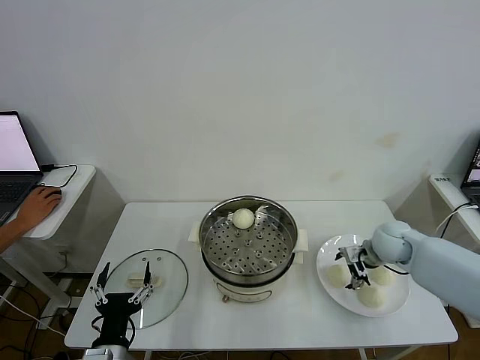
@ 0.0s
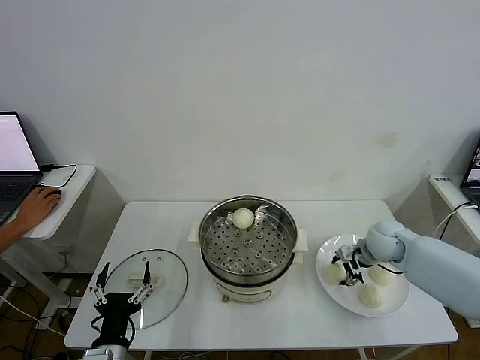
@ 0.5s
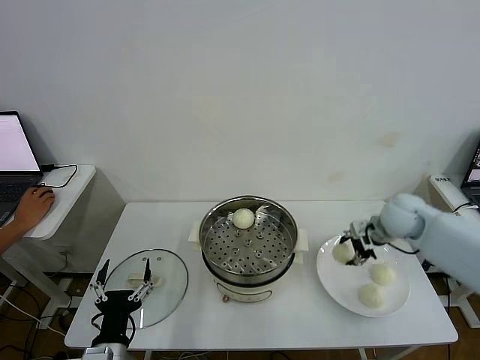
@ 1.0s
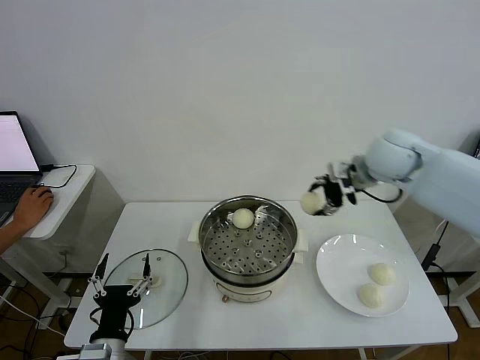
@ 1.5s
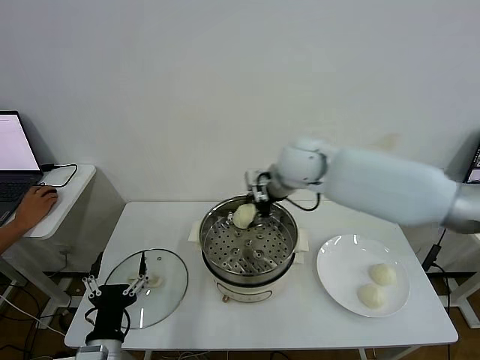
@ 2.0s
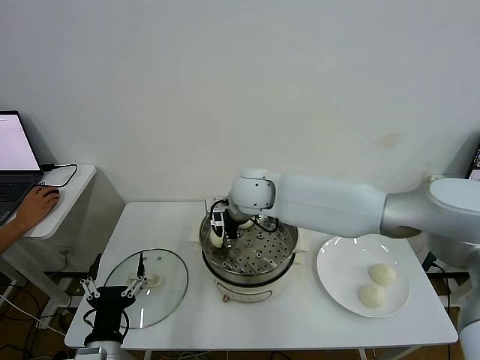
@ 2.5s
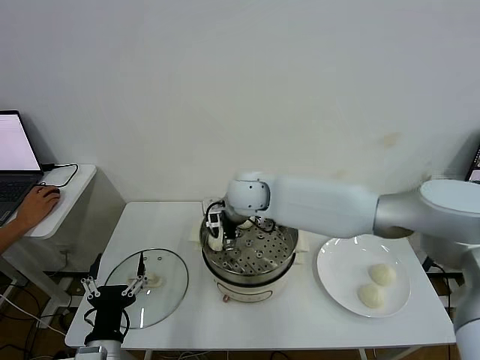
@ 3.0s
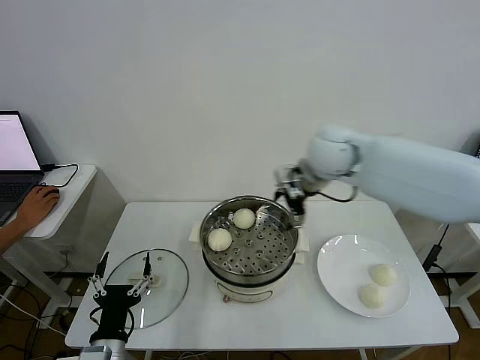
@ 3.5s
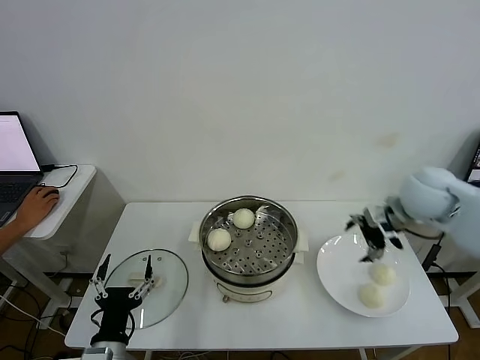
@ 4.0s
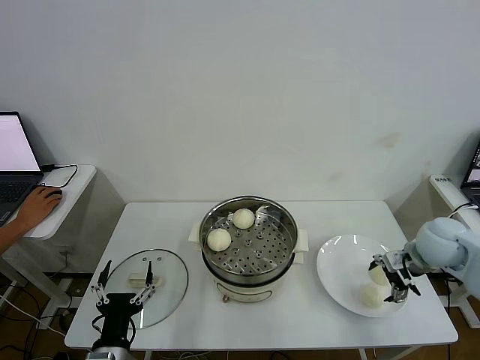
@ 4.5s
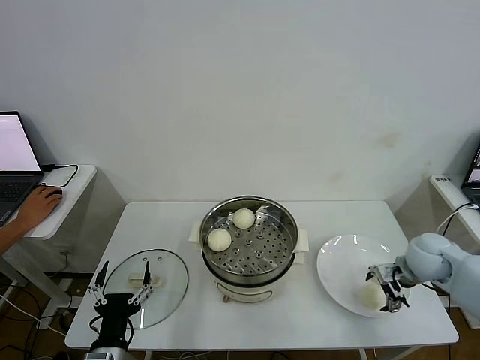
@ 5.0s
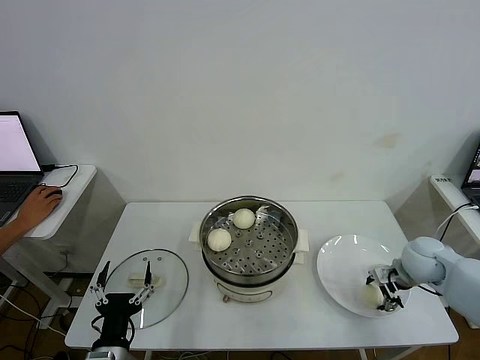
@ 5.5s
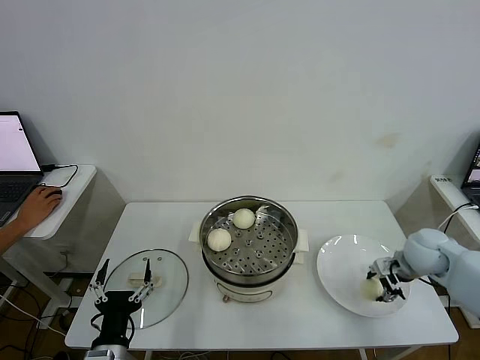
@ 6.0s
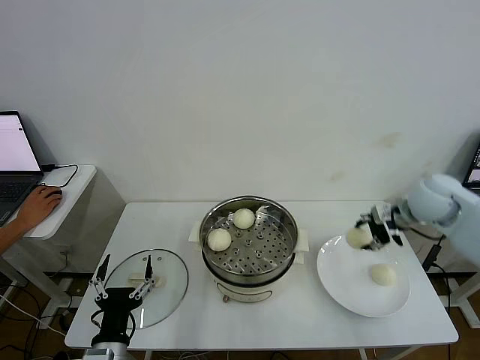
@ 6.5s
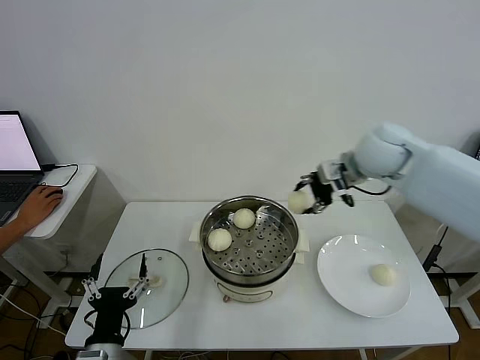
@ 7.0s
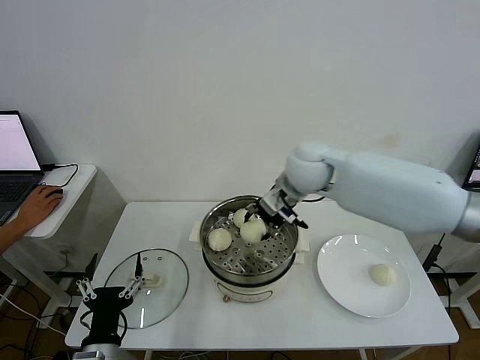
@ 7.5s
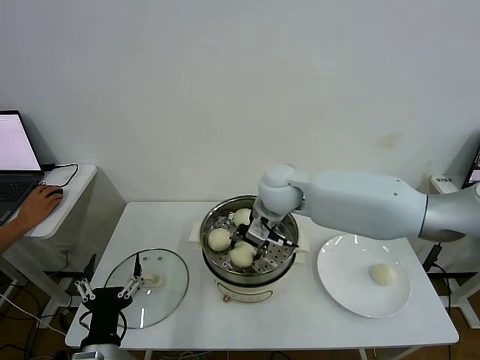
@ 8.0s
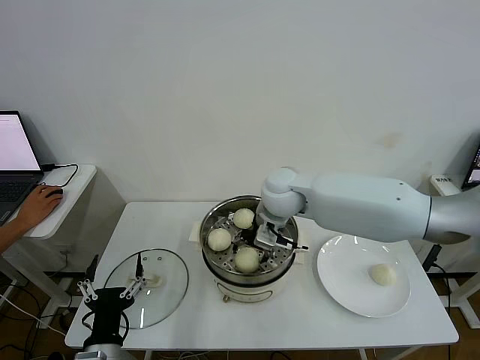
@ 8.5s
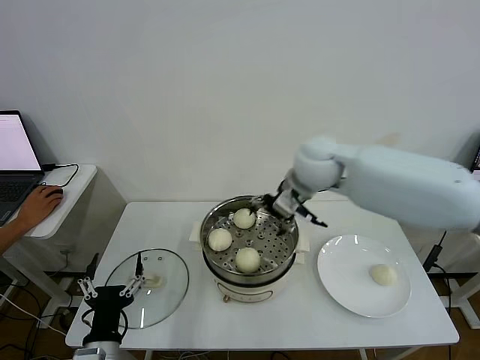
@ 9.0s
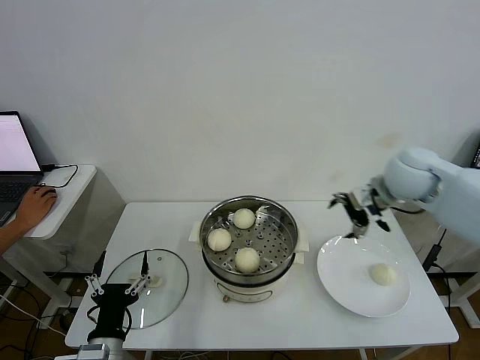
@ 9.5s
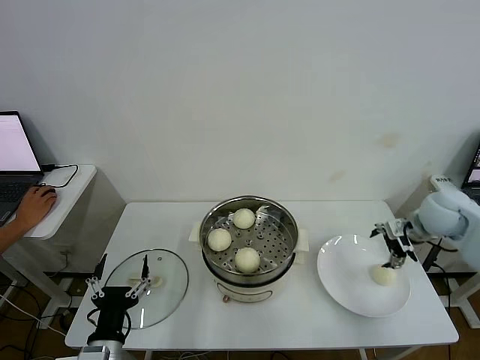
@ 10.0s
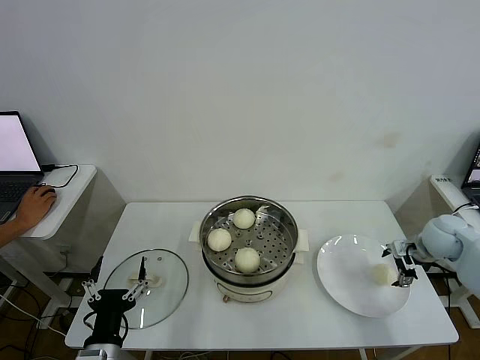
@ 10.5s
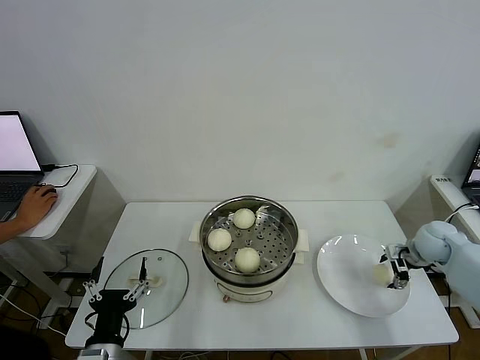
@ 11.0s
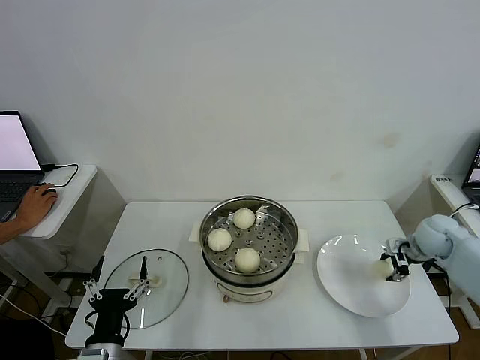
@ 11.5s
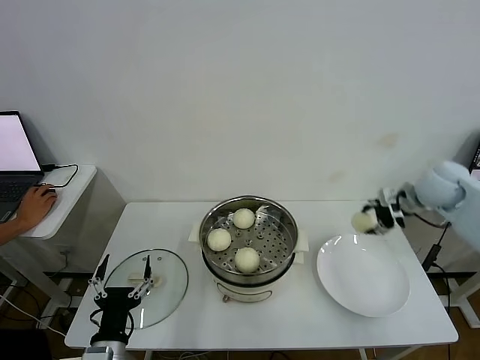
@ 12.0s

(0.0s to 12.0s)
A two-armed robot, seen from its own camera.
Step, 1.0s - 3.0s: Place the baozi on the steamer with right gripper.
Step, 3.5s - 5.5s: Grasp the baozi in the plate with right gripper.
Step, 6.0s - 8.5s: Place the baozi on the steamer with right gripper.
Step, 9.0s - 11.0s: Grasp the baozi in the plate with right gripper.
0.0s - 2.0s: The right gripper travels to the left and upward by some 30 cm, and closes.
2.0s - 4.0s: The right gripper goes roughly 25 cm to the right, and opens.
4.0s - 6.0s: The right gripper goes approximately 15 cm downward, and closes.
6.0s - 8.0s: The right gripper shifts about 35 cm to the left.
8.0s - 10.0s: The right gripper shifts some 35 cm to the right, and opens its fingers.
10.0s - 12.0s: The right gripper goes downward and returns, roughly 10 cm each way, and closes.

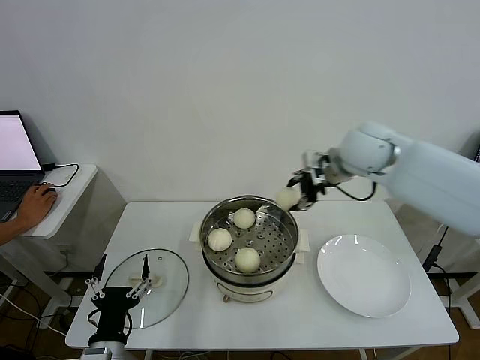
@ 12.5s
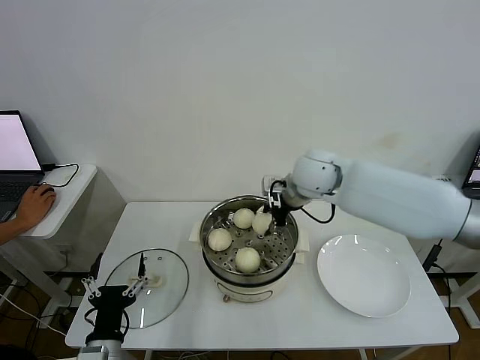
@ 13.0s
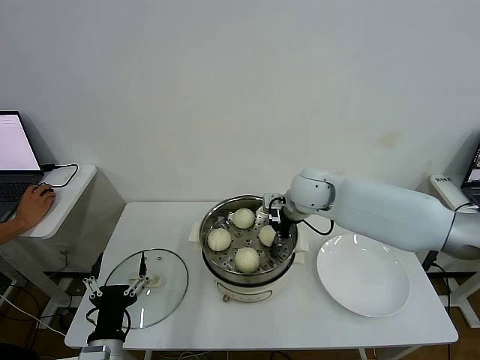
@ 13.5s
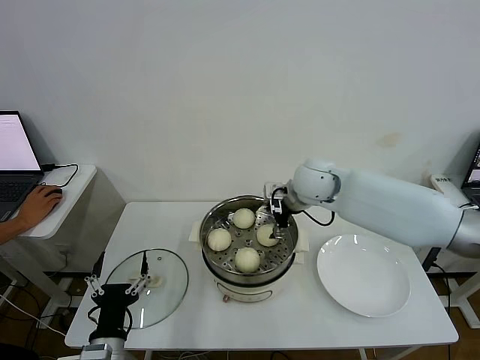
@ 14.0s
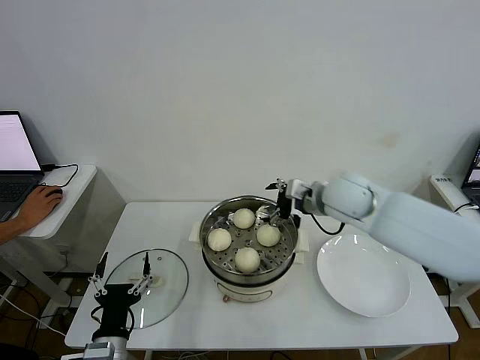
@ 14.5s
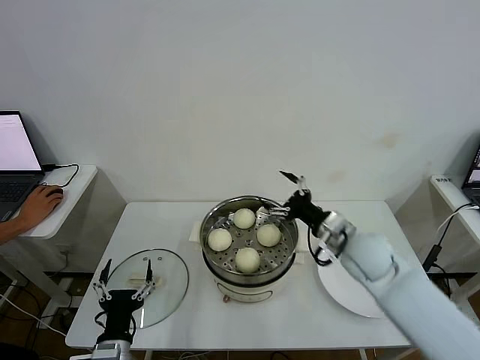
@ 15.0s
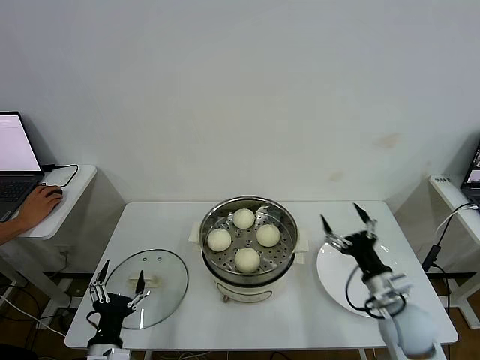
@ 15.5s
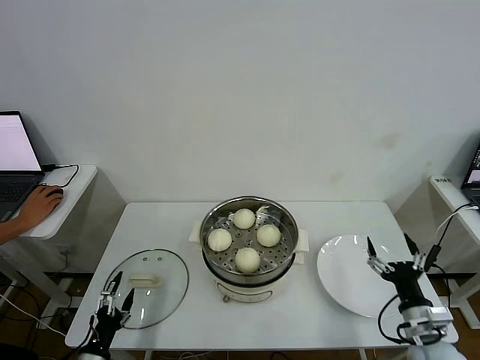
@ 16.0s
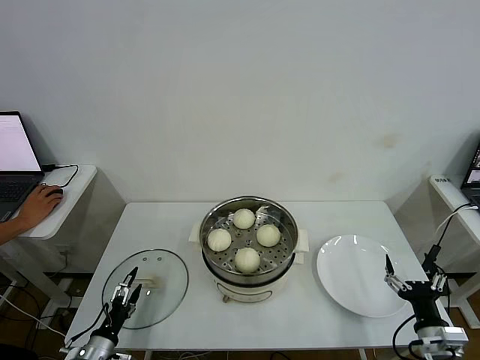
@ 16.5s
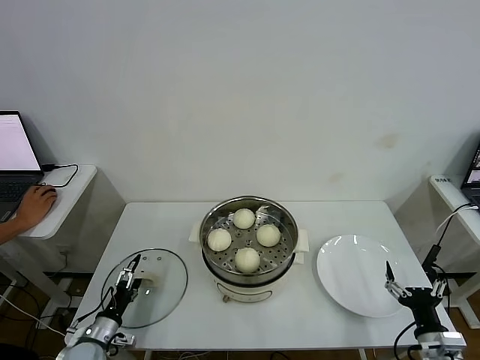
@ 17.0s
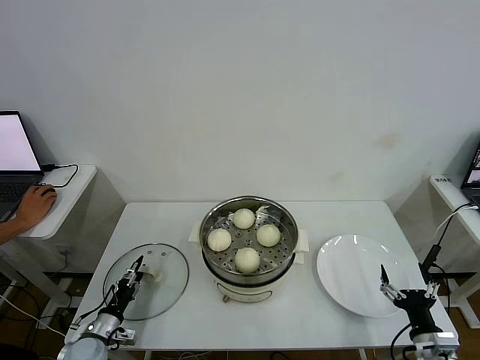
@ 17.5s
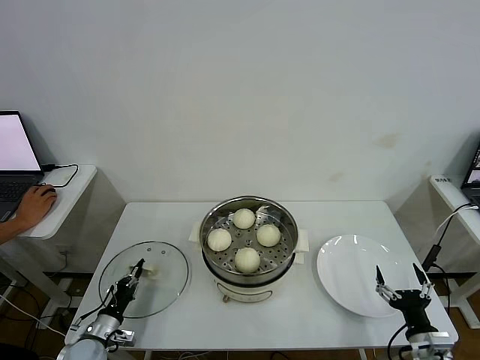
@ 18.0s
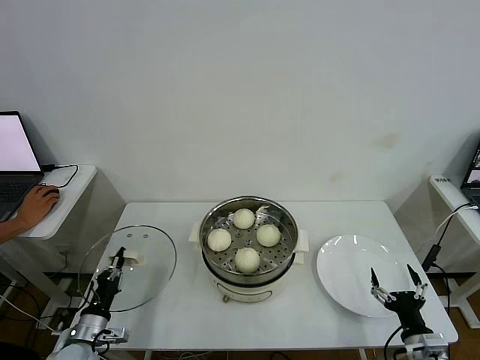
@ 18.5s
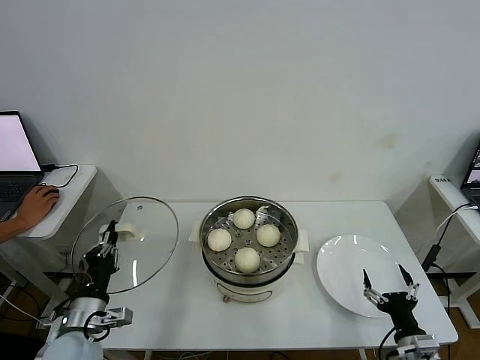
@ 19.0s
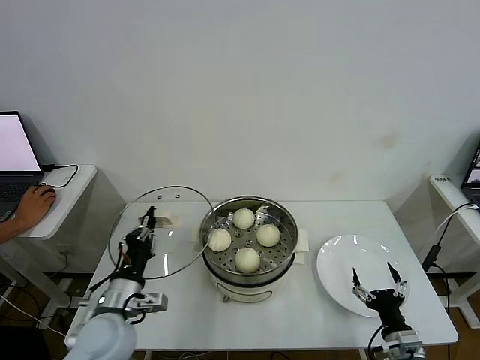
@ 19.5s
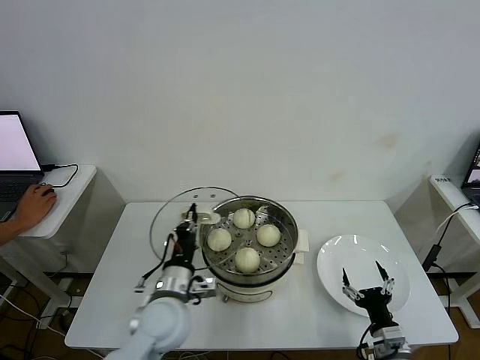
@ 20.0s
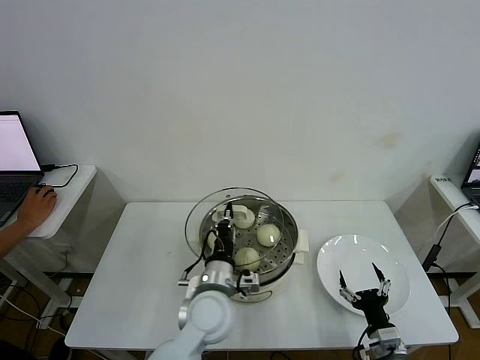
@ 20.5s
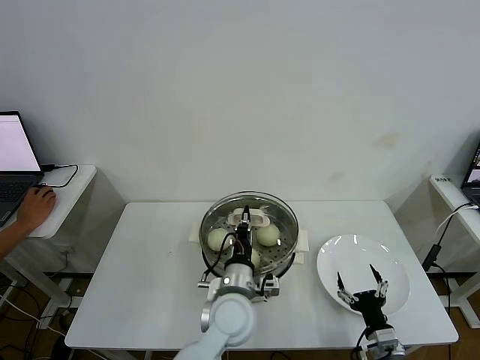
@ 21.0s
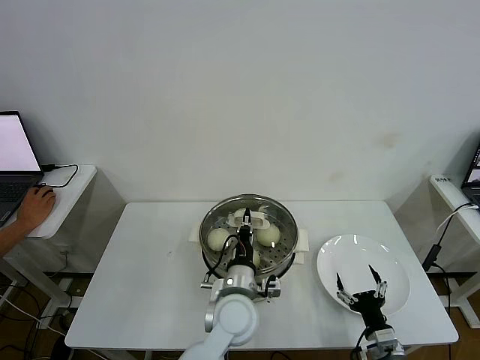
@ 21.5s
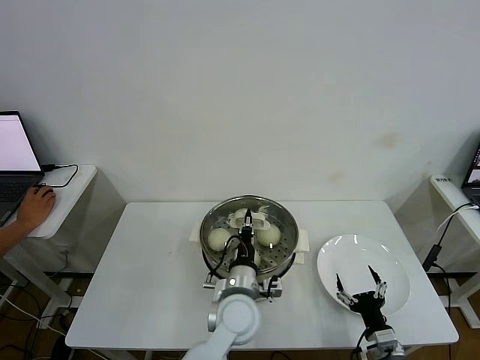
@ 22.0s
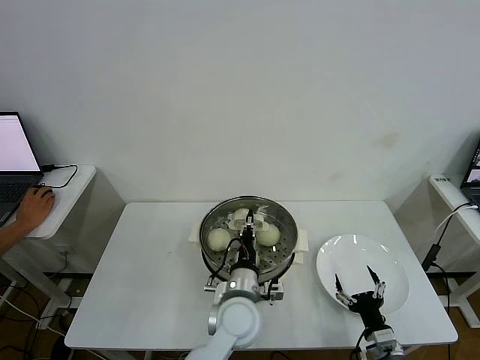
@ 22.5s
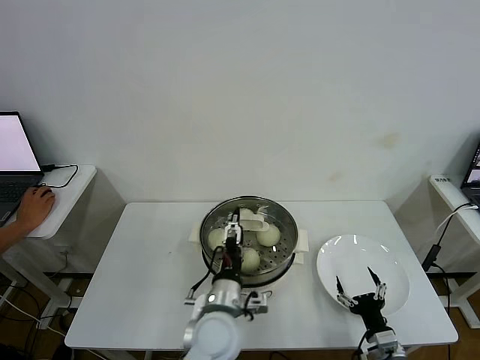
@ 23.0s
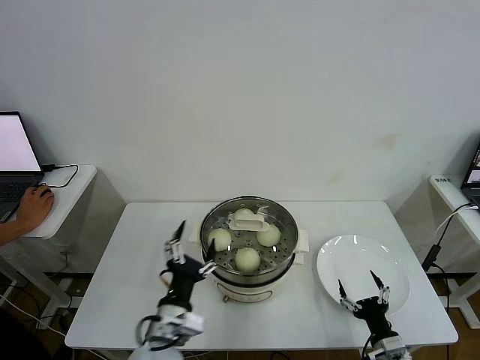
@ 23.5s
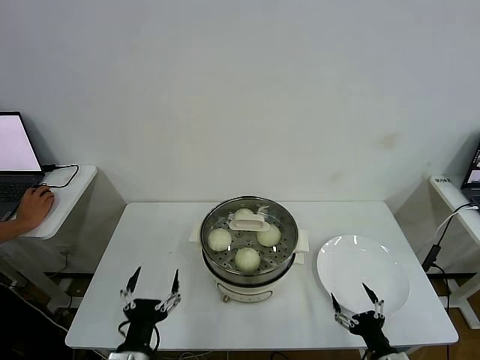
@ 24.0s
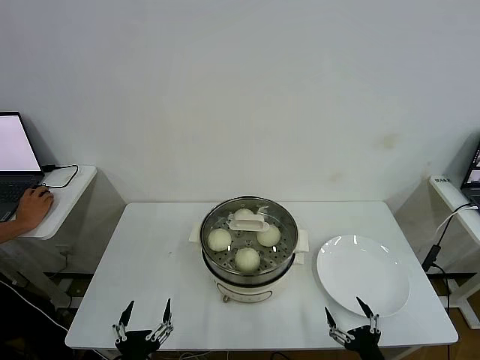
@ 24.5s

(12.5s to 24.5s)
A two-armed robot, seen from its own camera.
Step, 14.0s - 17.5s: Grasp the pot lid with left gripper.
Step, 18.5s - 22.5s: Place the pot lid on the steamer with left gripper.
12.5s - 14.5s: The right gripper heads downward, covering some 10 cm, and opens.
14.5s - 16.5s: The right gripper heads backward, downward and to the right, covering some 40 cm. Meanwhile the left gripper heads downward and to the left, covering approximately 15 cm.
16.5s - 18.5s: The left gripper shifts by approximately 5 cm, and closes.
18.5s - 20.5s: The left gripper is displaced to the right and upward by about 35 cm, while the right gripper is displaced to the left by some 5 cm.
20.5s - 22.5s: The left gripper heads to the right, covering roughly 5 cm.
22.5s - 24.5s: The right gripper shifts approximately 10 cm backward, while the left gripper moves to the left and backward, about 30 cm, and opens its fingers.
